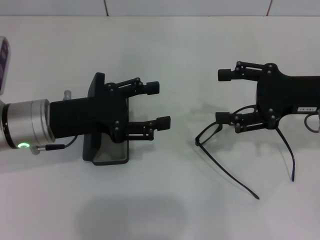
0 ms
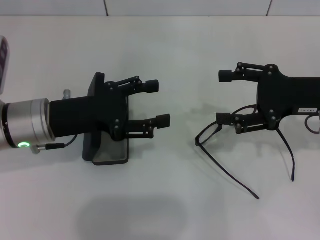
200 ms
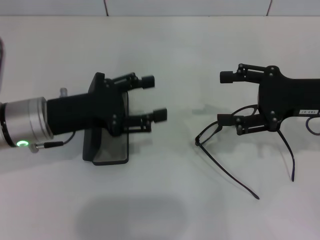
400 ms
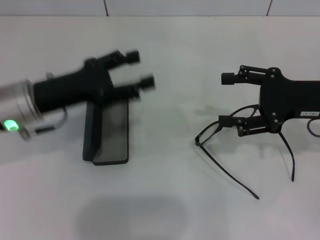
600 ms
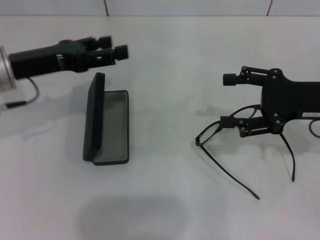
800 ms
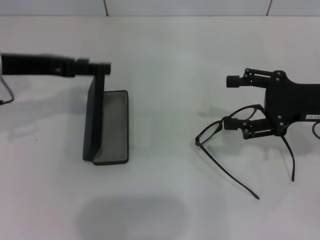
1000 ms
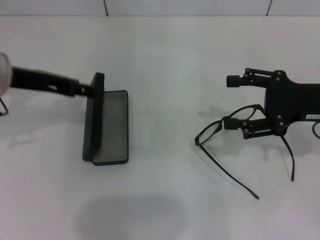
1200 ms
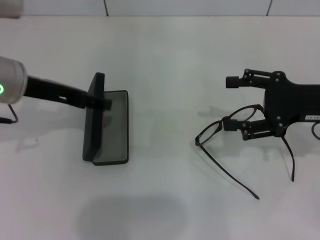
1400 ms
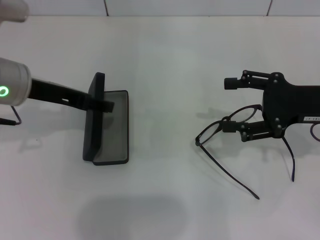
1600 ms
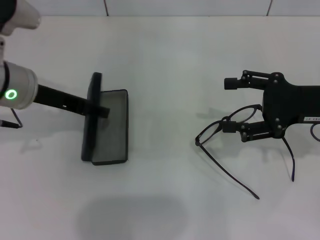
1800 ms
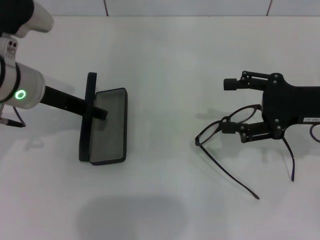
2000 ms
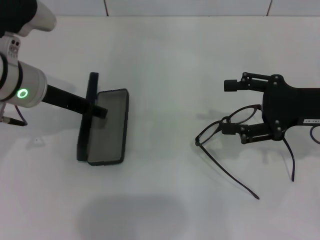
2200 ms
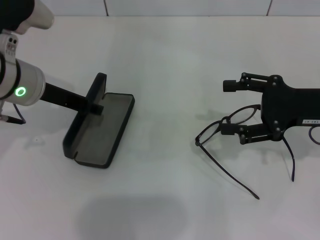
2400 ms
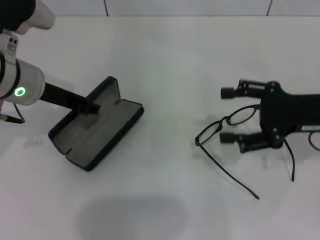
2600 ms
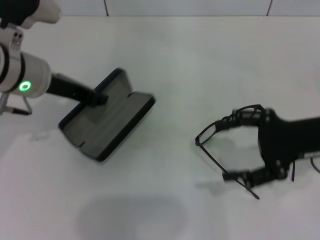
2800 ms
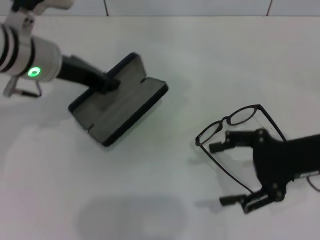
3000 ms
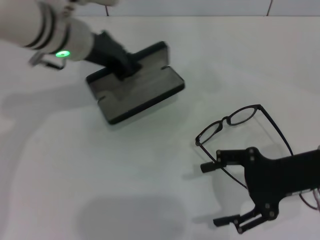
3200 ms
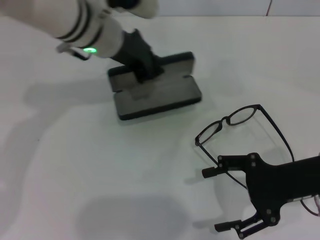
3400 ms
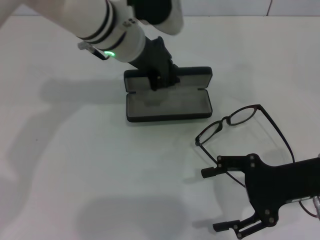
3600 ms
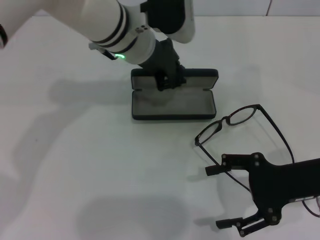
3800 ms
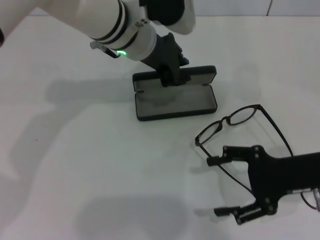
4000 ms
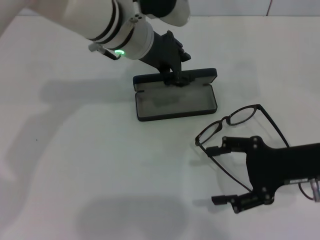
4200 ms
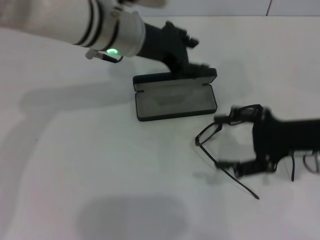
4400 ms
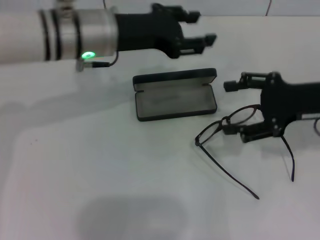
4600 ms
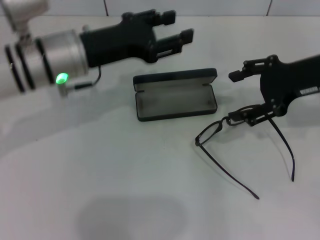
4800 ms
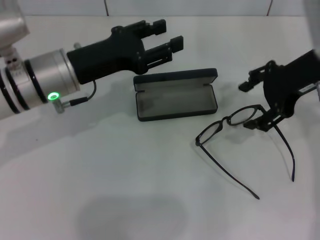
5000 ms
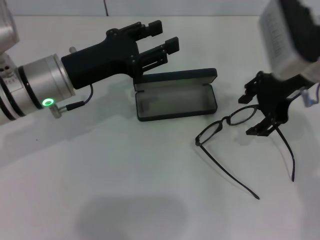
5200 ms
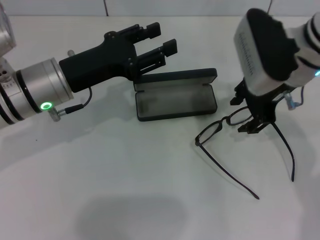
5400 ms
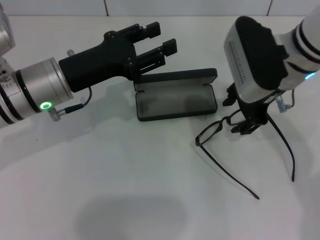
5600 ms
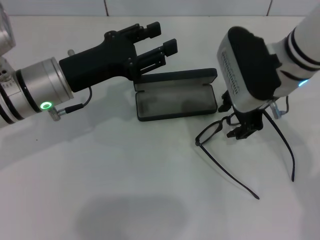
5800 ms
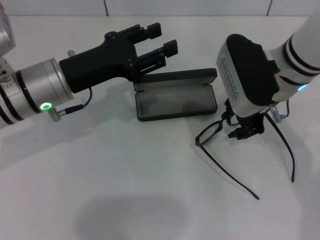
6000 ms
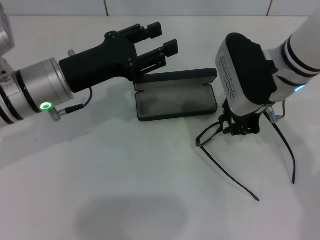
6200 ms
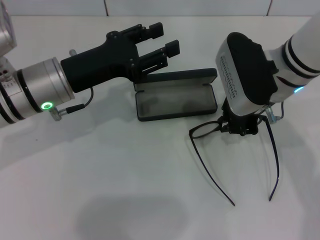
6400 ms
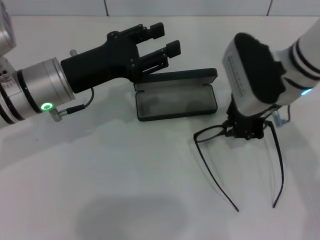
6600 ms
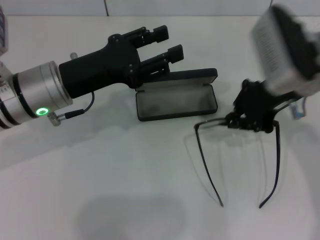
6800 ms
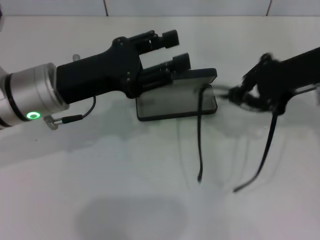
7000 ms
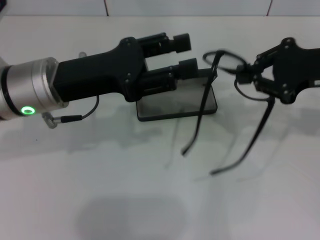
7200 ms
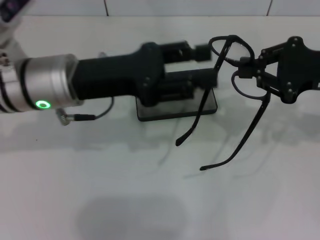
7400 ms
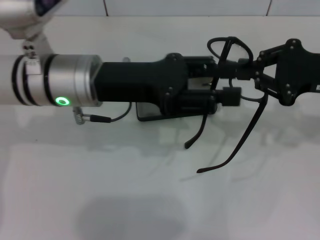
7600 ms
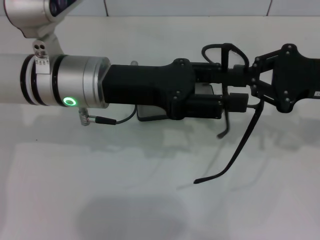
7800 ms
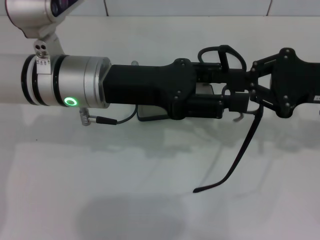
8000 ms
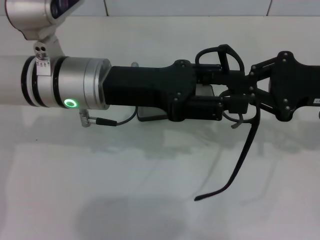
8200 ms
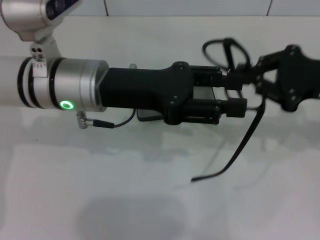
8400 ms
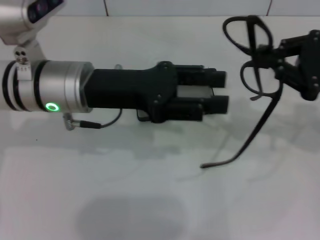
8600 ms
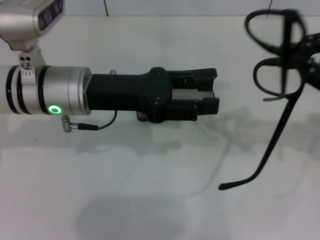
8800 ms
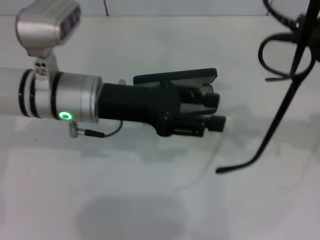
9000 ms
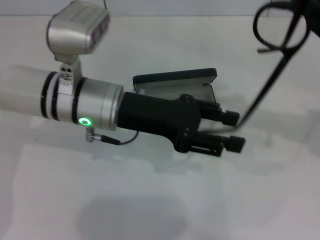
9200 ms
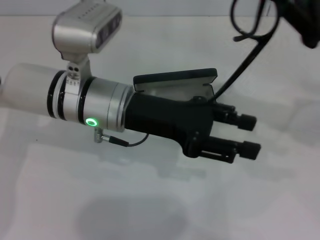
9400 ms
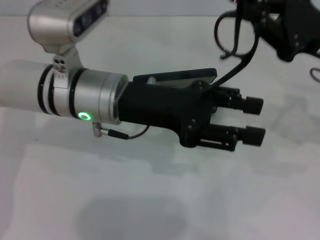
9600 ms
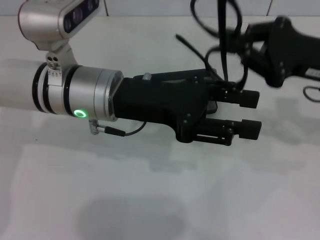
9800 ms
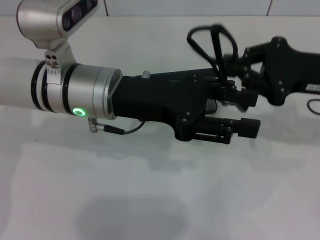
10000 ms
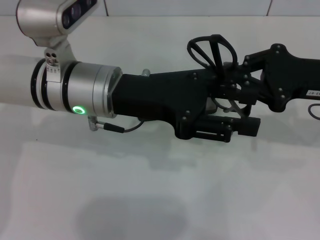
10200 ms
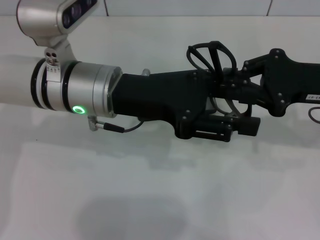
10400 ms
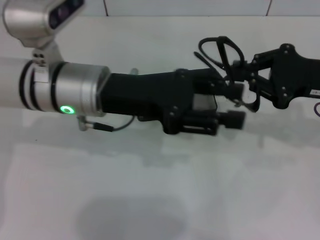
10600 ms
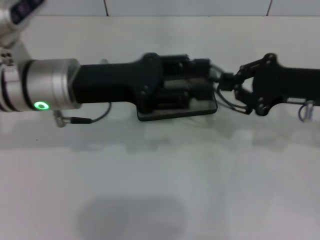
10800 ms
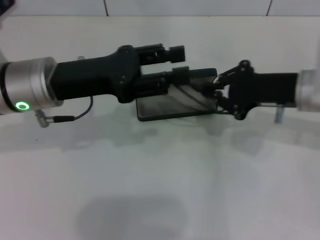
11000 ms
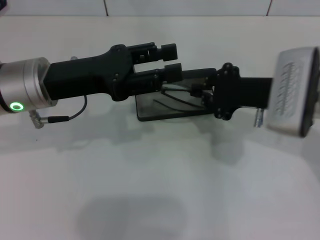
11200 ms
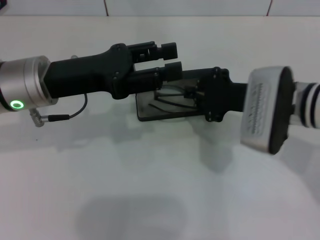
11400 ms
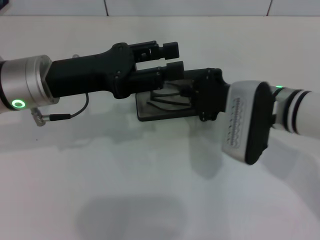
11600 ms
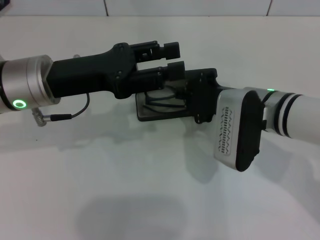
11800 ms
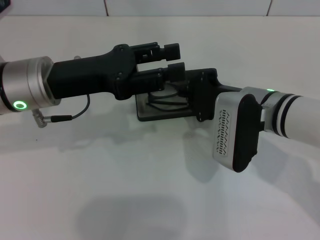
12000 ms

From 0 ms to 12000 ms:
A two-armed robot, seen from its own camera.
Step, from 0 ms to 2400 ms: Grab the glasses case with your left hand.
Step, from 2800 ms to 4200 ms: Place the glasses case in the center of the table with your left hand.
Step, from 4600 ms to 6200 ms: Grab the eyeglass frame with your right hand.
Step, from 6600 ms to 10400 ms: Fold the frame with your left hand.
From 0 ms to 1600 ms: The left gripper heads upward, covering approximately 5 cm.
From 1600 ms to 3000 ms: The left gripper shifts by about 5 cm, and closes up.
From 3000 ms to 4400 ms: The left gripper moves to the right, some 10 cm, and opens its fingers.
From 4400 ms to 6000 ms: The left gripper heads to the left, backward and downward, covering about 15 cm. The right gripper shifts about 15 cm to the left and forward.
From 6000 ms to 7600 ms: The right gripper goes approximately 15 cm to the right, and closes up; the left gripper travels to the right by some 5 cm.
From 7600 ms to 9000 ms: The right gripper ends up some 5 cm from where it was.
From 9000 ms to 10400 ms: The right gripper ends up roughly 5 cm from where it was.
From 10400 ms to 12000 ms: The right gripper goes some 15 cm to the left and downward. Meanwhile the left gripper goes about 10 cm to the left.

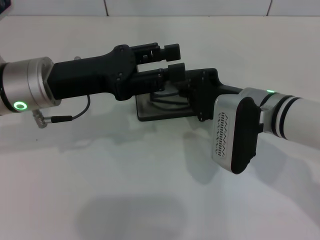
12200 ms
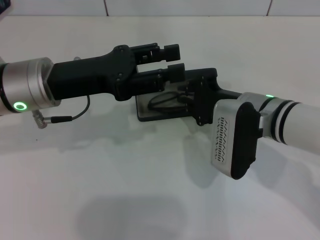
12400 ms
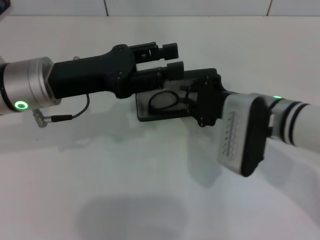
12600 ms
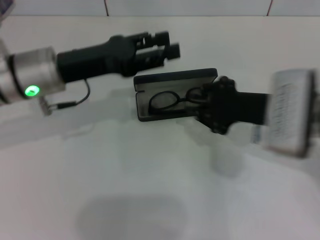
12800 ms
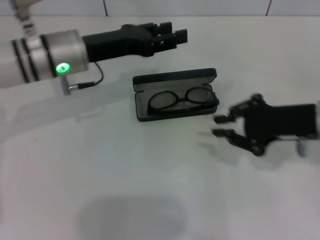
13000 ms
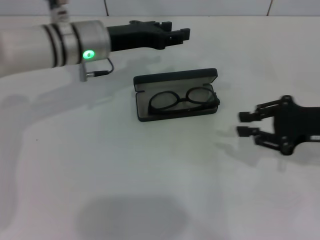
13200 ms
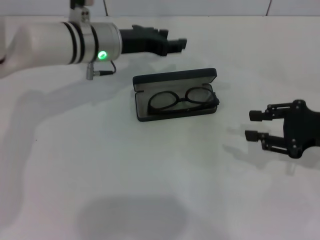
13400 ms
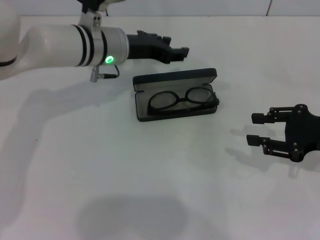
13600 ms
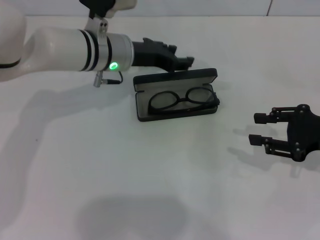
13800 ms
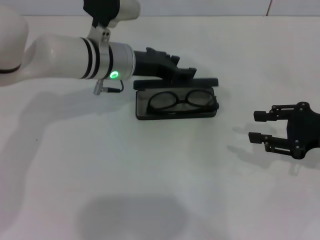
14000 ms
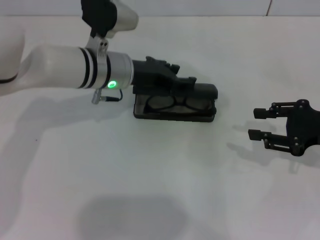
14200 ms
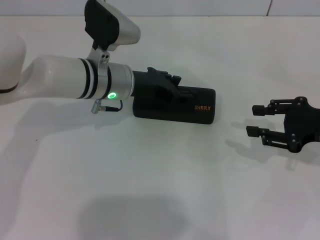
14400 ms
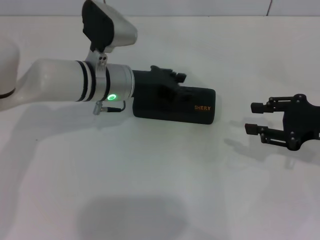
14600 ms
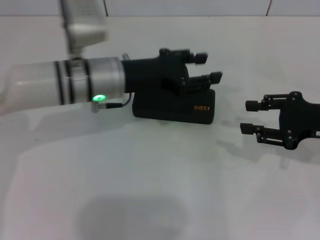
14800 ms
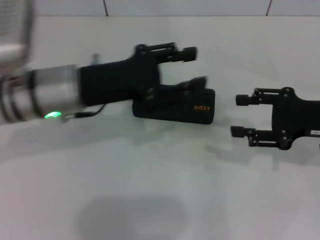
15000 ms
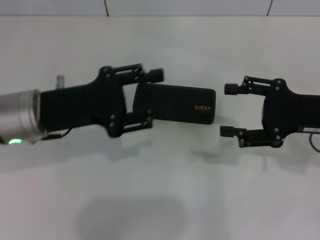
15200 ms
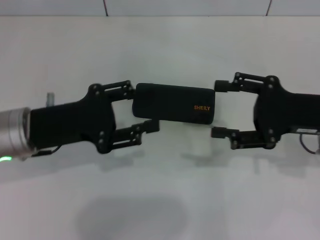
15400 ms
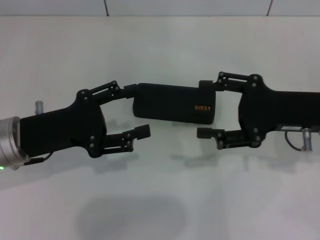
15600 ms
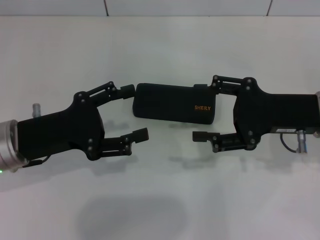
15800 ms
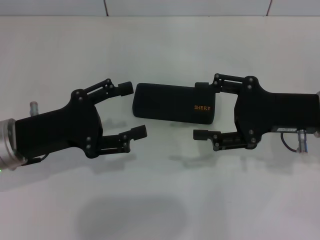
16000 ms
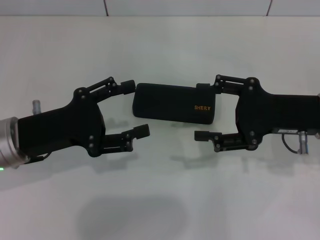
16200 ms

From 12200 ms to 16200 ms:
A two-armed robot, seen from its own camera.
Step, from 12800 ms to 14200 ms: Close the glasses case with your left hand.
From 12200 ms to 13600 ms: The right gripper moves to the right, about 15 cm, and opens; the left gripper travels forward and to the right by some 15 cm.
From 13600 ms to 14800 ms: The left gripper shifts about 5 cm backward.
From 14800 ms to 16200 ms: The right gripper heads to the left, covering about 5 cm; the left gripper shifts roughly 15 cm to the left and backward, and opens up.

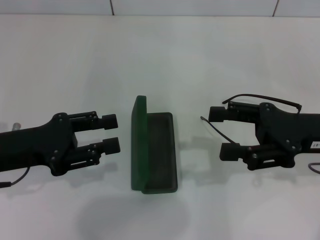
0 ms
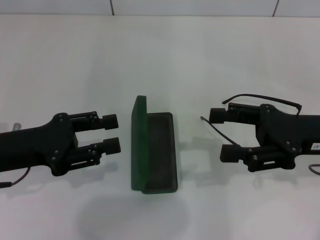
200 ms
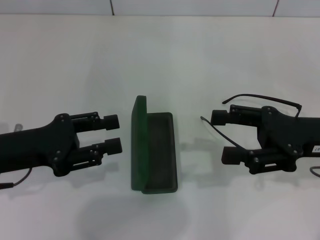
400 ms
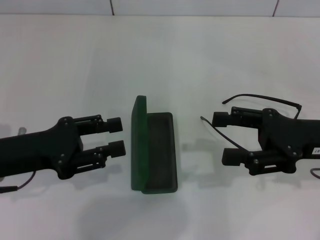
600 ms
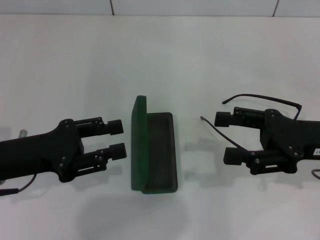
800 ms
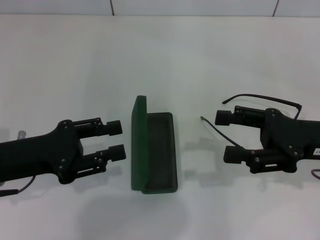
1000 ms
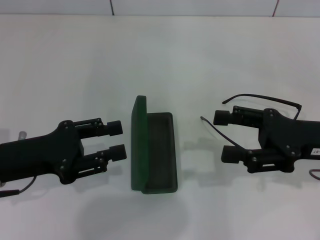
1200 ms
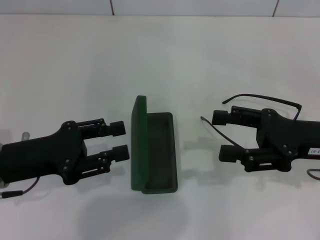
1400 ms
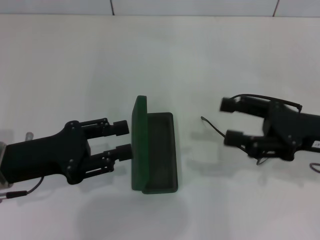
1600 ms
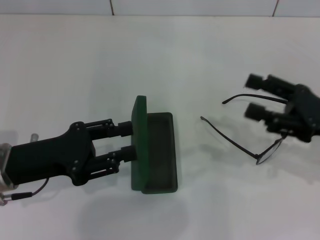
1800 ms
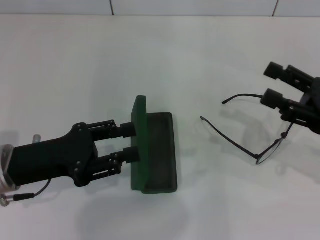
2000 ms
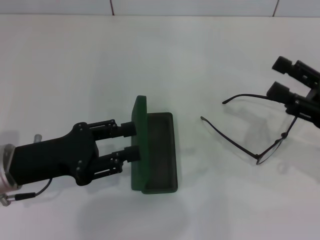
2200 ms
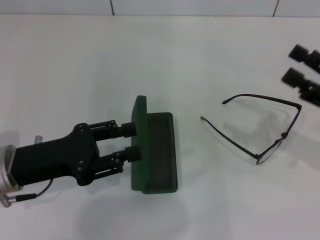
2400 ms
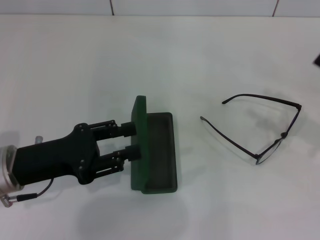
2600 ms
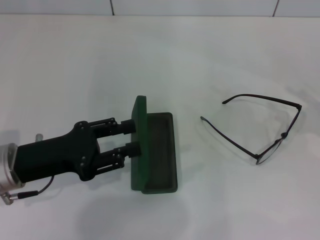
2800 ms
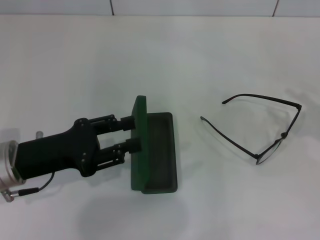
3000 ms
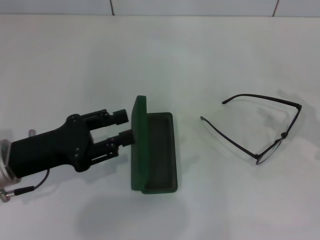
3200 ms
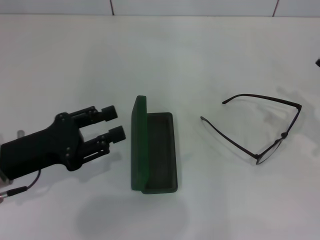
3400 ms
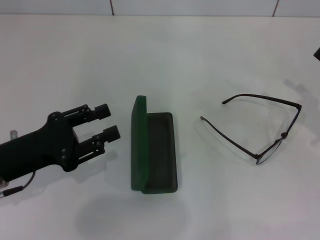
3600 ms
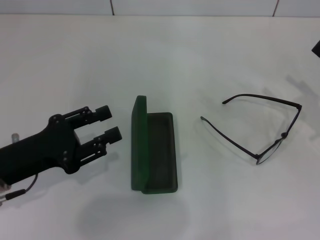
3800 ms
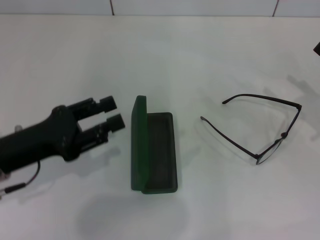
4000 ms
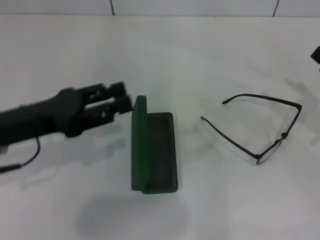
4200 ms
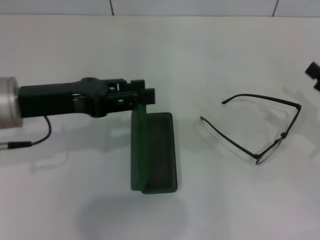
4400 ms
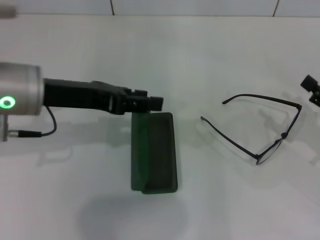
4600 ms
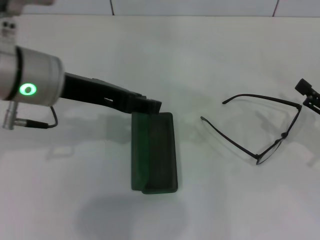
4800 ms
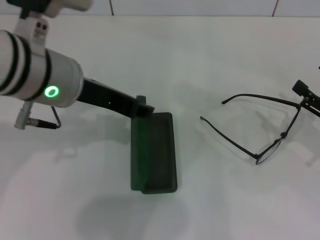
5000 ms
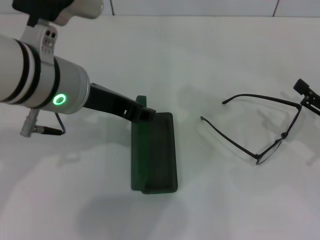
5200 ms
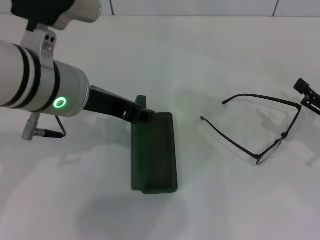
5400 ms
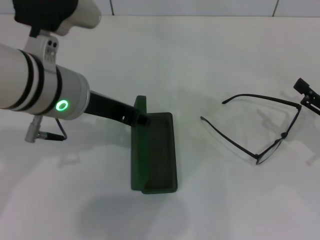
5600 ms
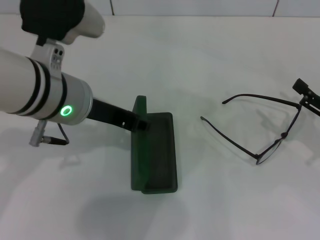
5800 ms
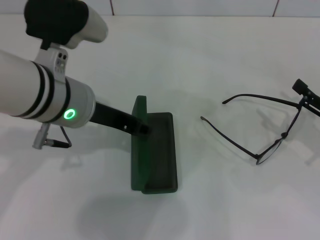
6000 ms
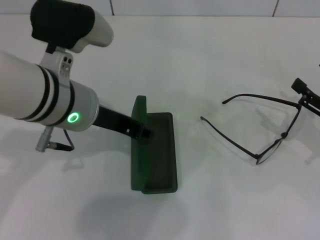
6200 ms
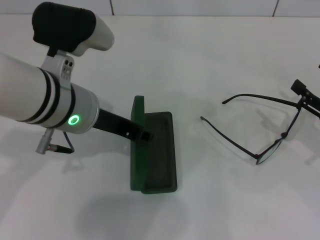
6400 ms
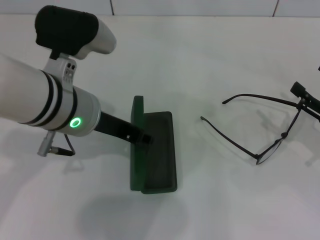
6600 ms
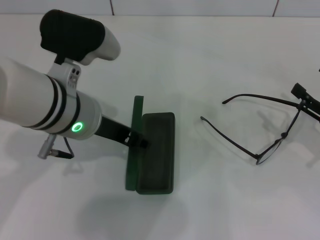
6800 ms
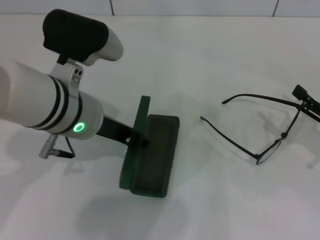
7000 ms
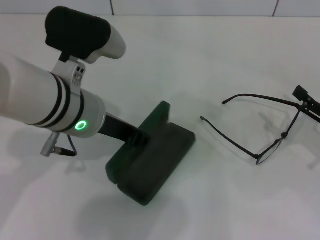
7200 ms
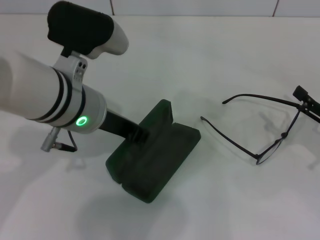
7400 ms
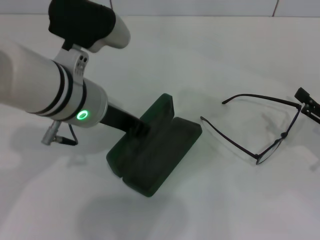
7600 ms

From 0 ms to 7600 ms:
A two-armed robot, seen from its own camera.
Step, from 0 ms to 6800 ms: Grab the glasses case with your left hand.
From 0 ms to 1600 ms: There are only small adjustments of the grippers.
From 1600 ms to 3000 ms: The right gripper moves to the right, approximately 10 cm.
From 3000 ms to 4600 ms: The left gripper moves upward and forward, some 10 cm.
From 4600 ms to 6000 ms: The left gripper is displaced to the right by some 5 cm.
From 6000 ms to 7600 ms: The left gripper closes.
